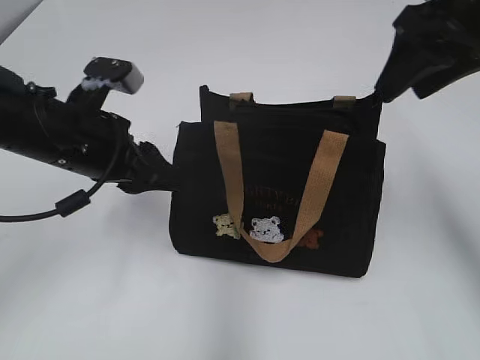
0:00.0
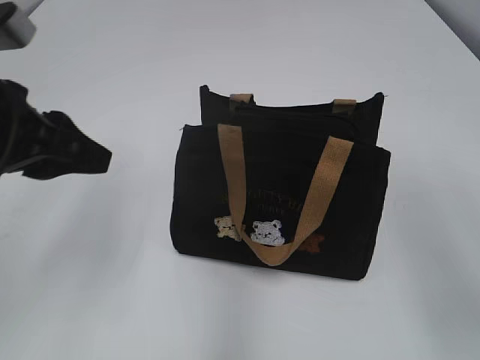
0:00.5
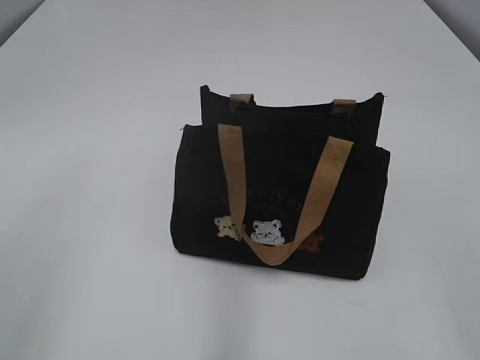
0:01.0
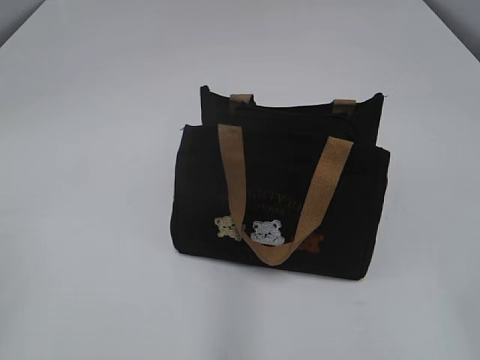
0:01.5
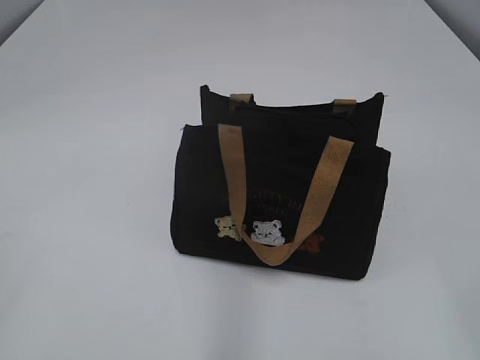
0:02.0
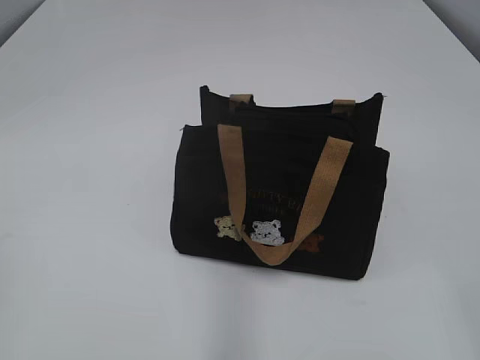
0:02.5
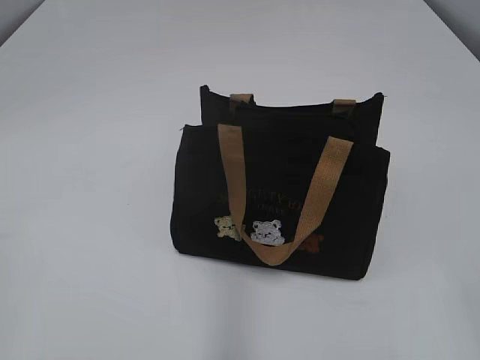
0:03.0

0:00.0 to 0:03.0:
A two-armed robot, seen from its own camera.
0:00.0 to 0:01.5: The left gripper goes about 30 cm backward and to the left; the right gripper shifts about 35 cm backward.

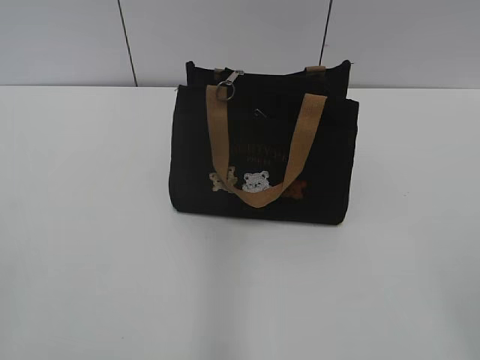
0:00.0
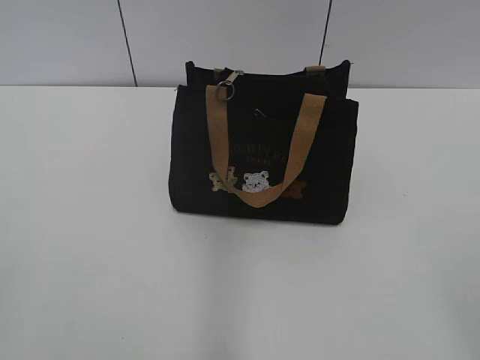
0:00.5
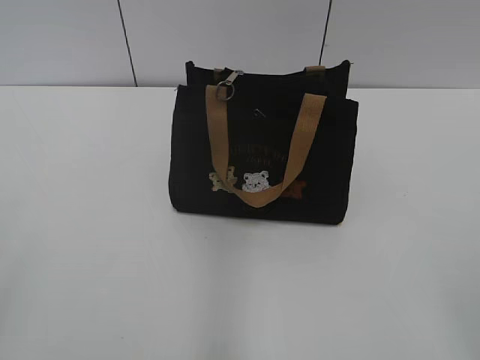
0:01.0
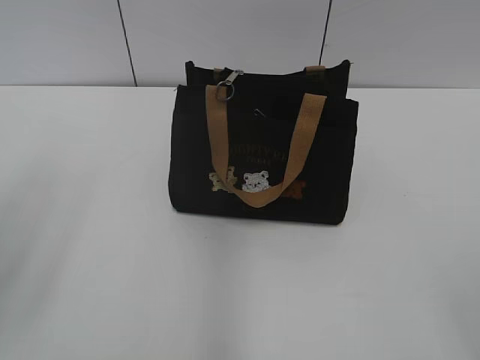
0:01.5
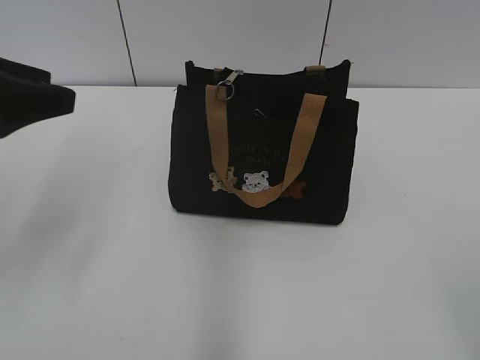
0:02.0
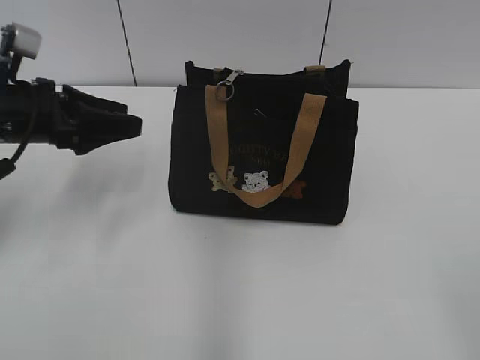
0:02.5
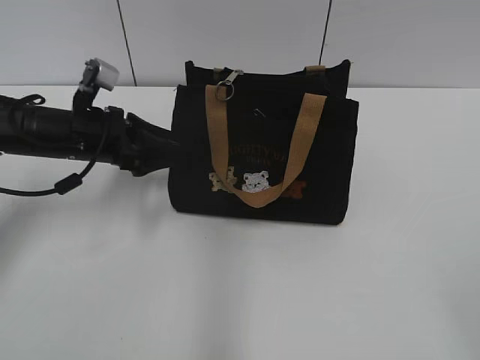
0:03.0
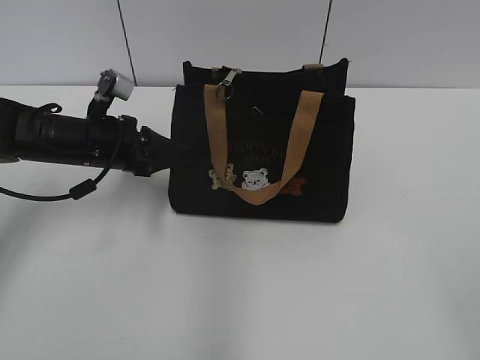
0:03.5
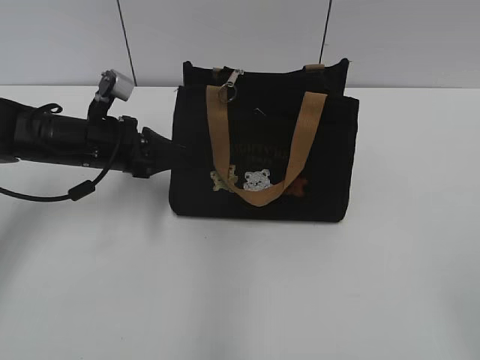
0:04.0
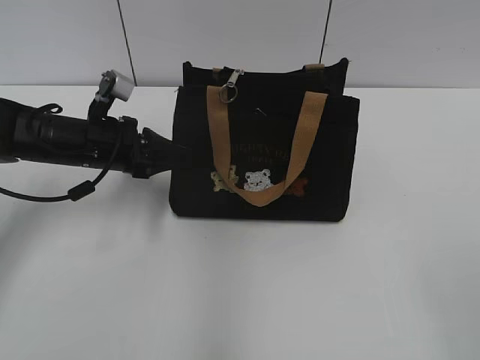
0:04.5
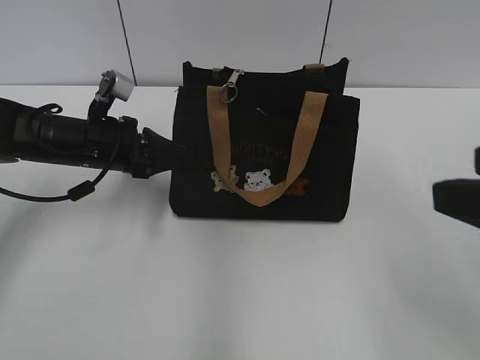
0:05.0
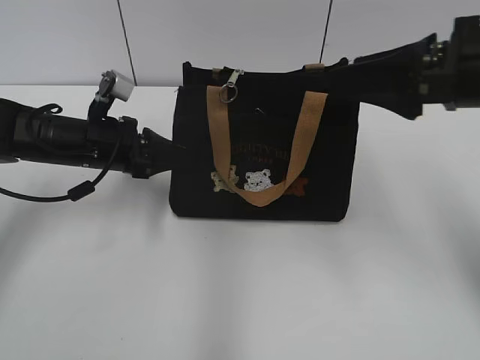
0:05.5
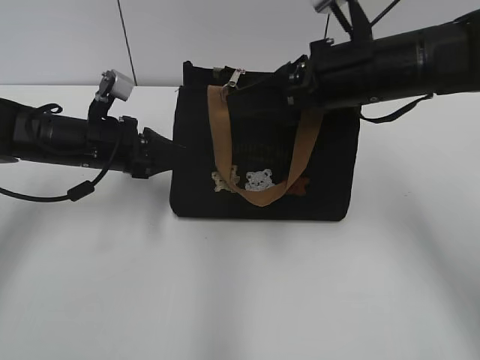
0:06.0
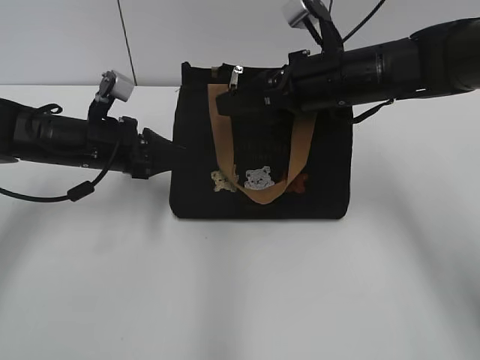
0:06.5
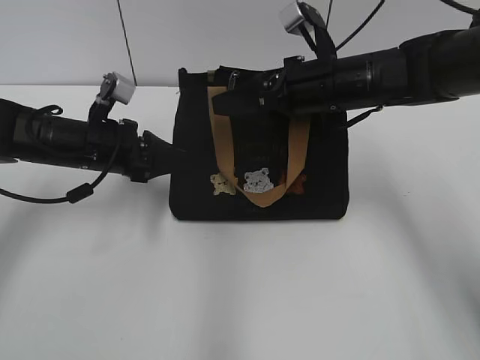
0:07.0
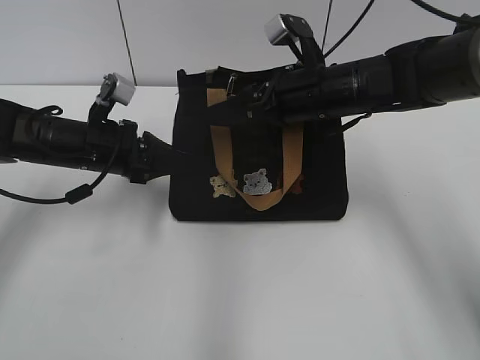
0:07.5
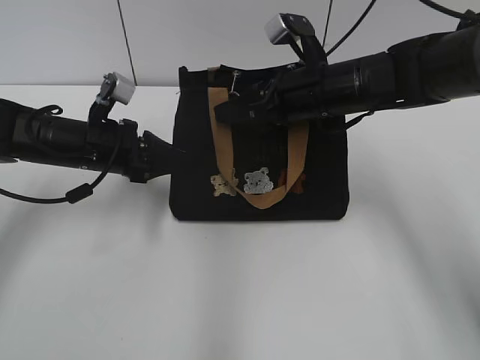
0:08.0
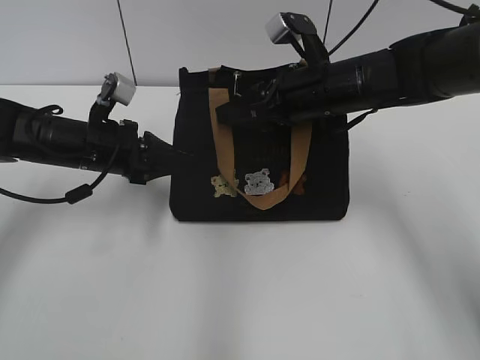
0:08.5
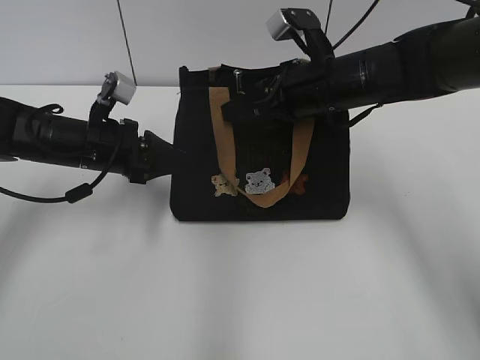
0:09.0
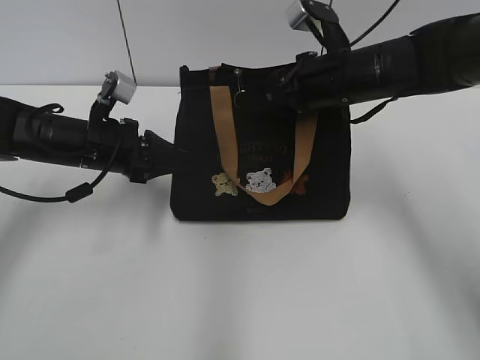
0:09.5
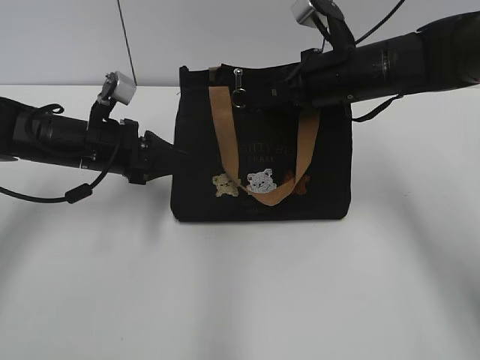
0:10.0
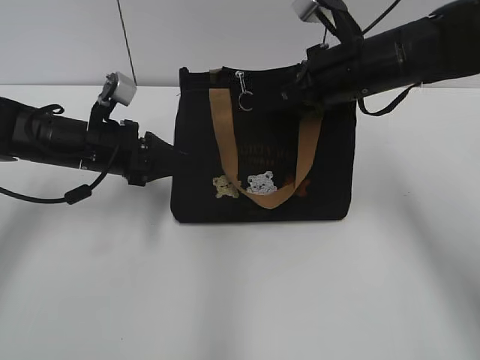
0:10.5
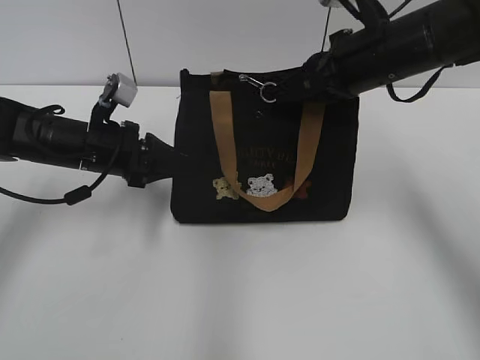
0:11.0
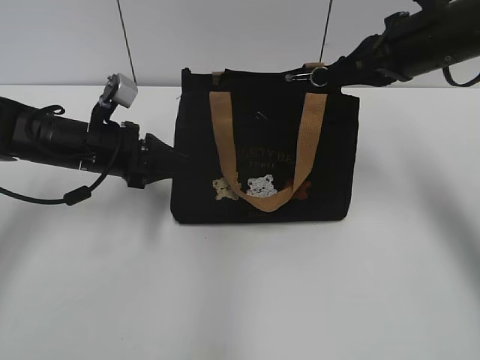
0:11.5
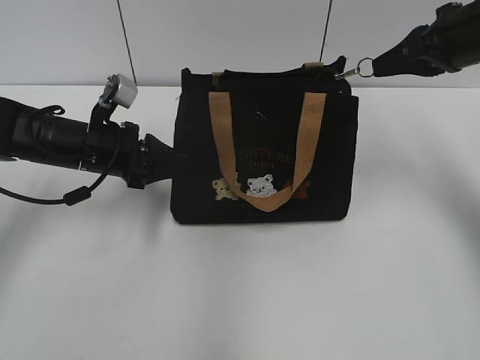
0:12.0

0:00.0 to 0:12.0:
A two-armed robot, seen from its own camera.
0:02.0 to 0:04.0: The left gripper shifts approximately 20 cm downward, forward and to the right, and closes up.
0:04.0 to 0:06.0: The right gripper is displaced forward and to the left by about 35 cm.
0:06.0 to 0:08.0: The right gripper moves downward and forward, approximately 10 cm, and closes.
0:08.0 to 0:10.0: The right gripper closes its fingers.
0:10.0 to 0:12.0: The right gripper moves to the right and upward, approximately 15 cm.

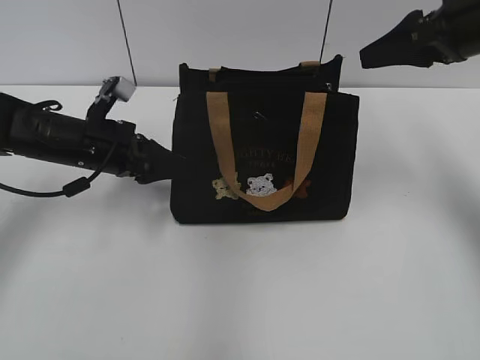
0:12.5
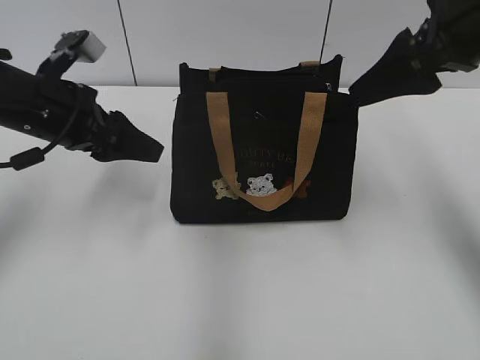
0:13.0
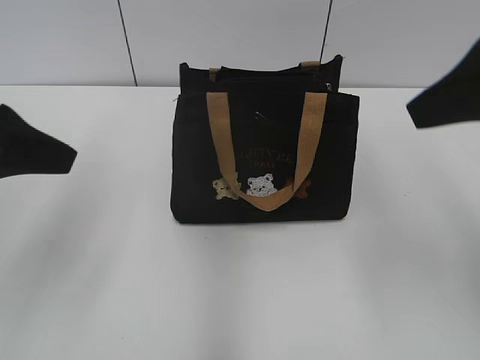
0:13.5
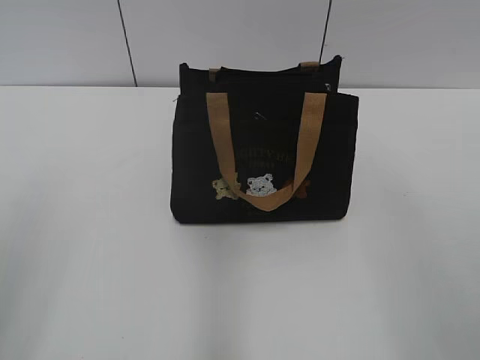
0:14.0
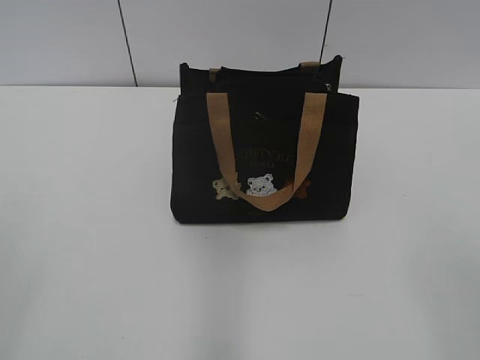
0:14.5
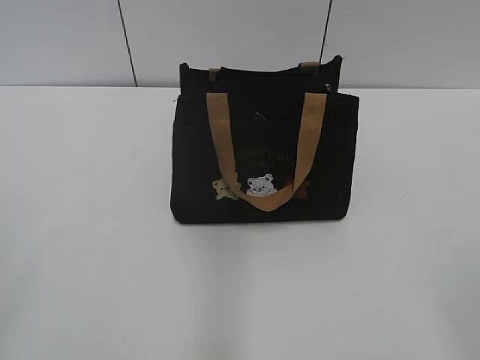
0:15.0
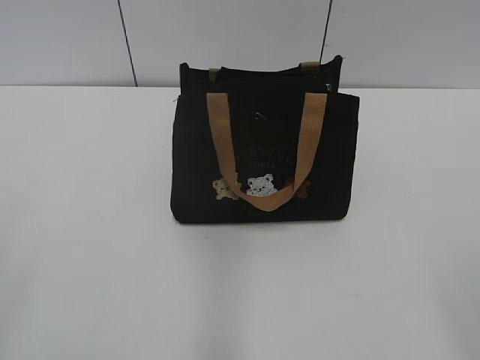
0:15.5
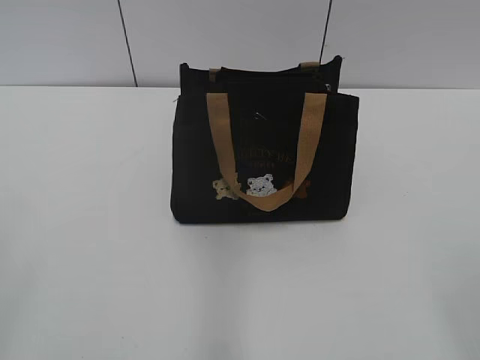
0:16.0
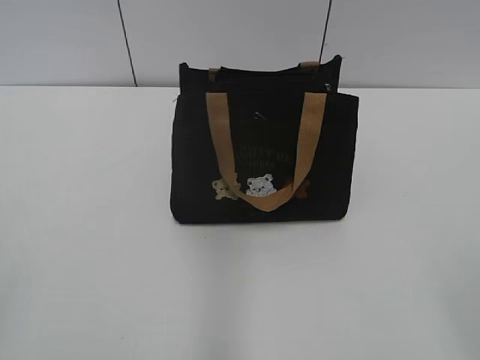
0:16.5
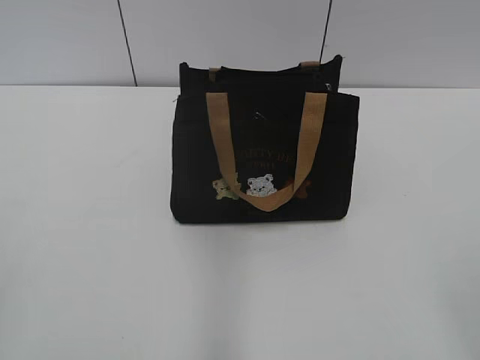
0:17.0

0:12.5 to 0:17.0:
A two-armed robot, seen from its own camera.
0:12.5 to 0:14.5: The left gripper shifts roughly 35 cm backward and upward; the right gripper heads backward, covering roughly 35 cm.
